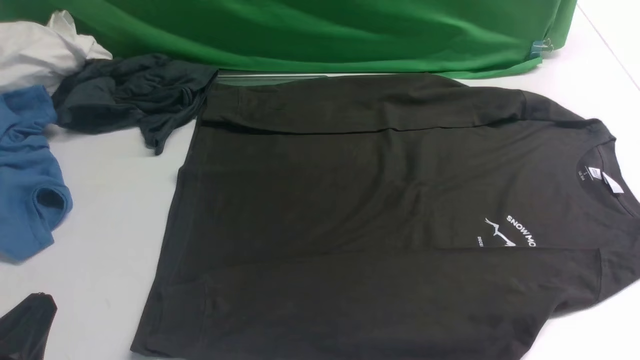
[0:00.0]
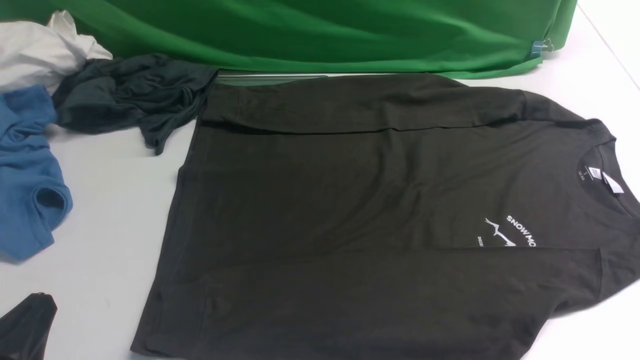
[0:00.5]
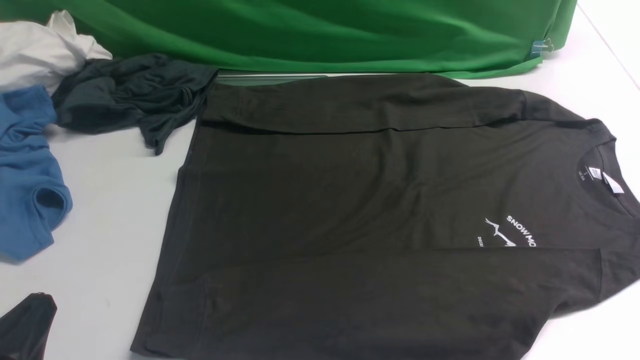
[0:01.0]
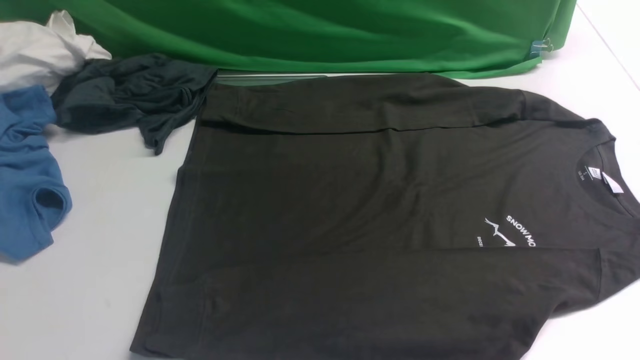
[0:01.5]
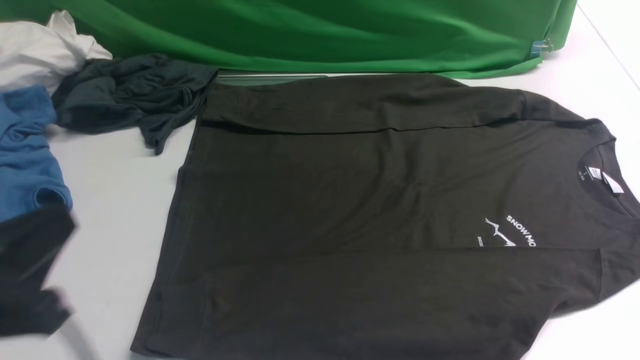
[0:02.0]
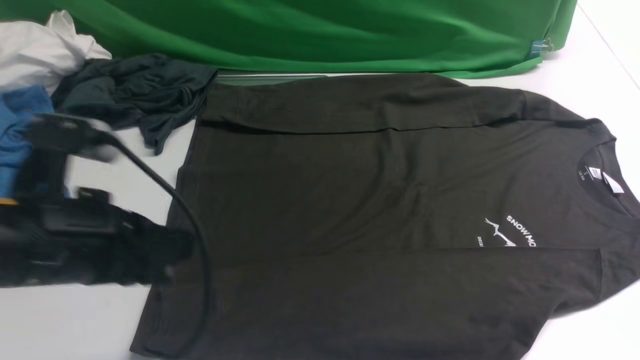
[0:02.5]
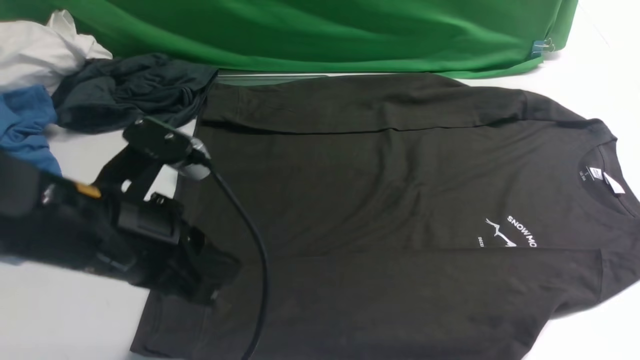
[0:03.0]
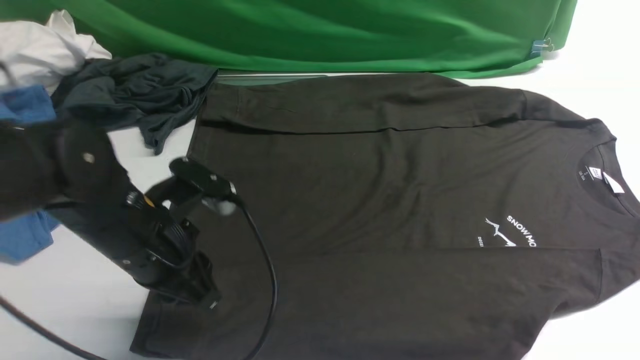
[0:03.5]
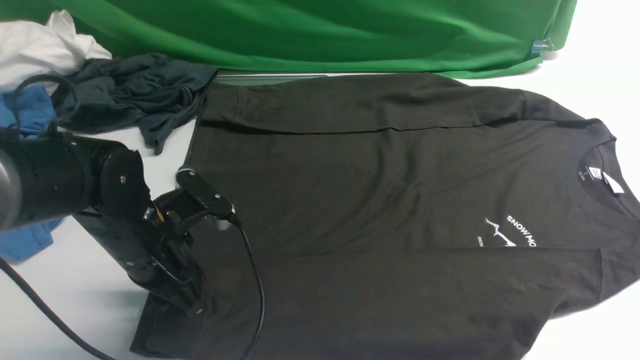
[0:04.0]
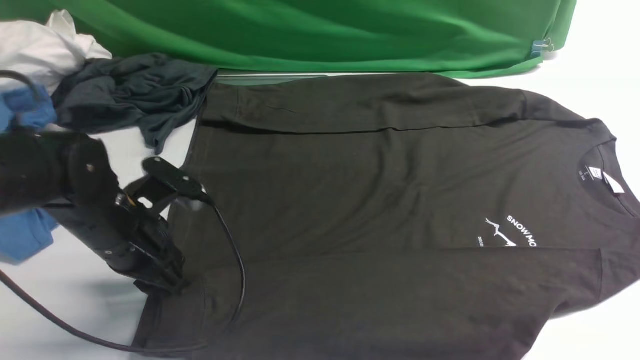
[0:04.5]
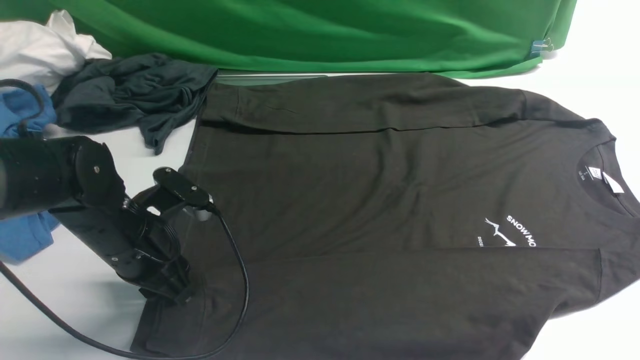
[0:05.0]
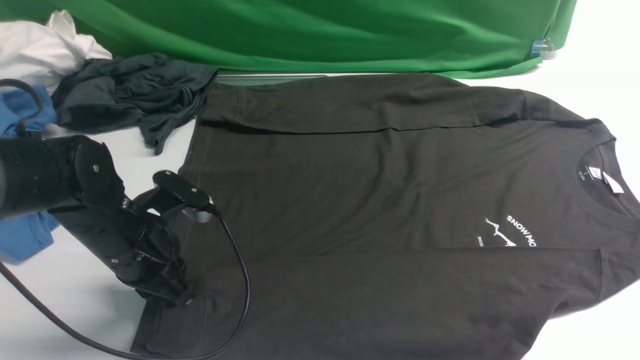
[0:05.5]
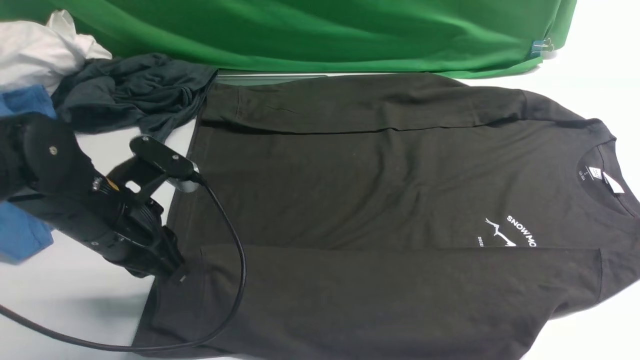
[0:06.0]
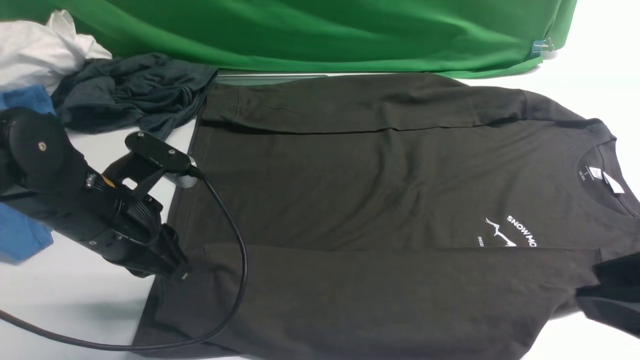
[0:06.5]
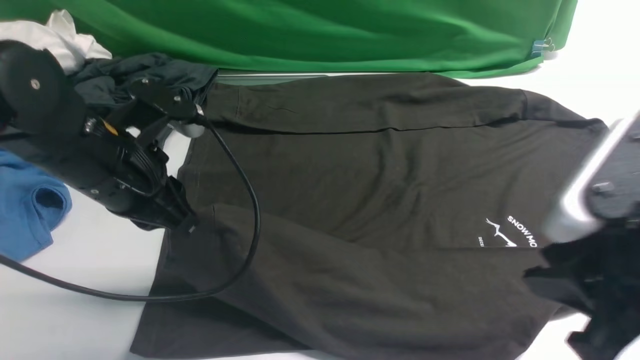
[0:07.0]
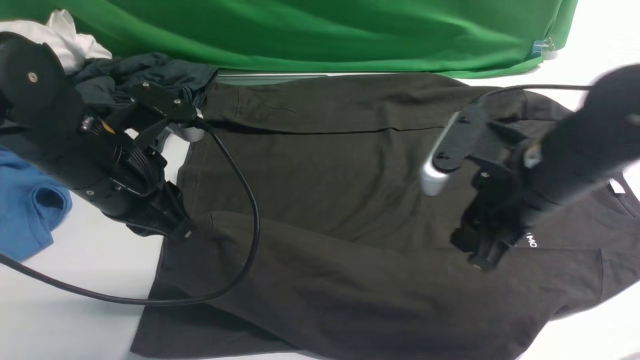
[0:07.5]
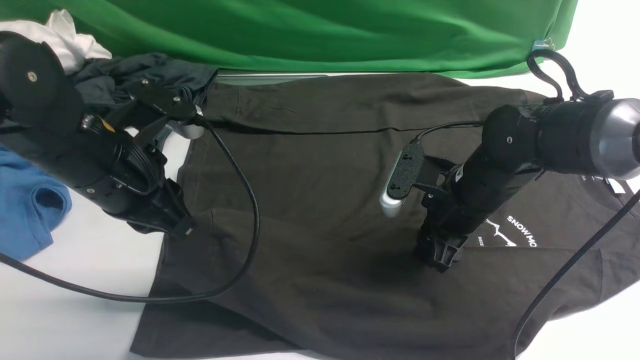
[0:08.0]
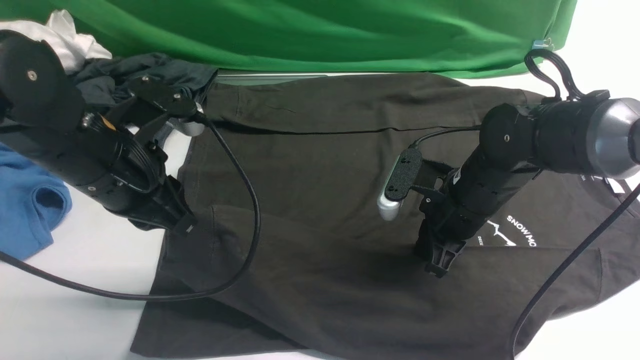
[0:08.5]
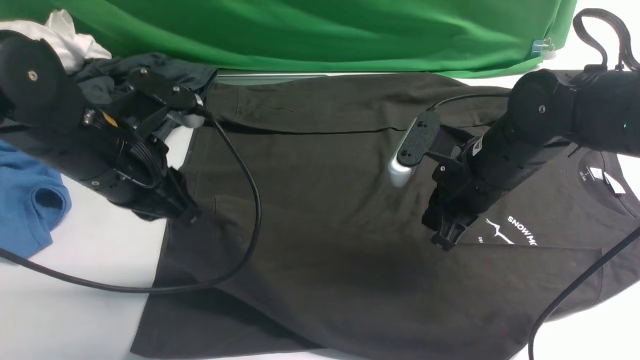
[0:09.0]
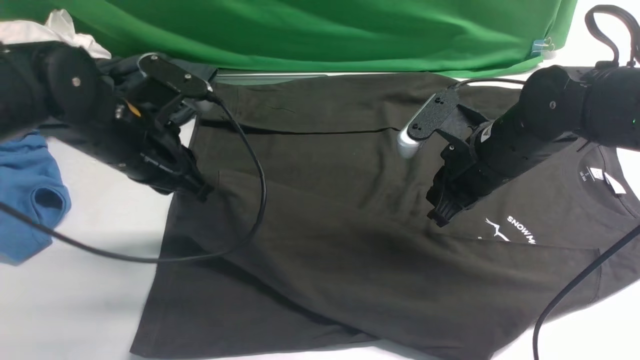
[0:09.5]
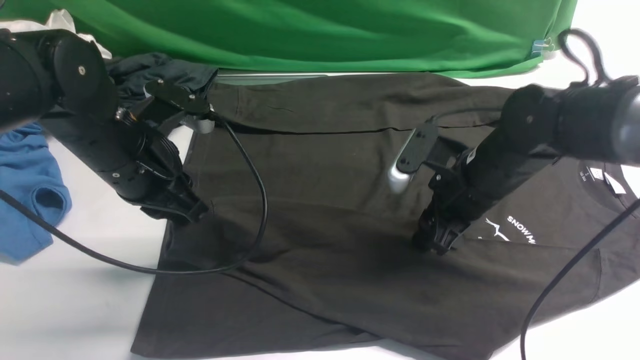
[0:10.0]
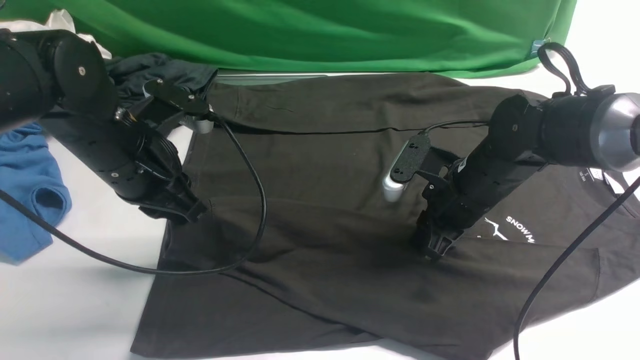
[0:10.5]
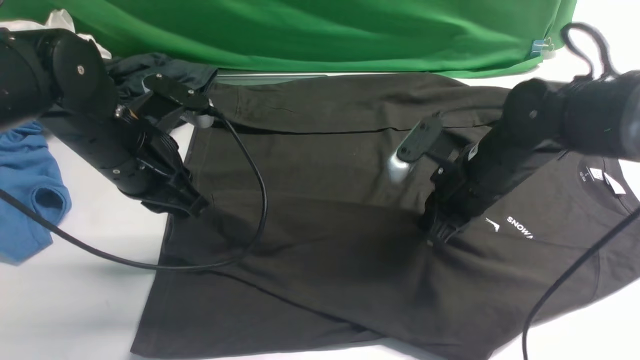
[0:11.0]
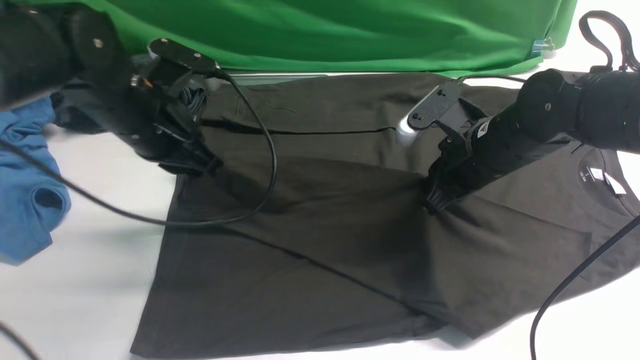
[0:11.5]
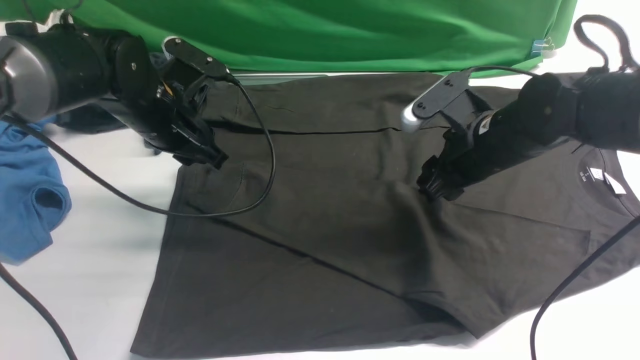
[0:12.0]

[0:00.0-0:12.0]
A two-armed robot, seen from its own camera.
Step, 0:00.0 to 0:06.5: use the left arm to clamp the cuff closest to it.
0:00.0 to 0:02.0: The left gripper travels upward by approximately 10 cm.
0:02.0 to 0:04.0: The left gripper heads forward and downward, covering roughly 20 cm, and opens up.
0:04.0 to 0:06.0: The left gripper closes up.
0:06.0 to 0:08.0: The right gripper moves forward, downward and to the left, roughly 35 cm; the left gripper moves upward, approximately 5 cm.
0:08.0 to 0:10.0: The right gripper closes, then reopens.
0:10.0 to 0:12.0: The right gripper closes and opens again. The left gripper goes some 10 cm forward, and opens its fingers.

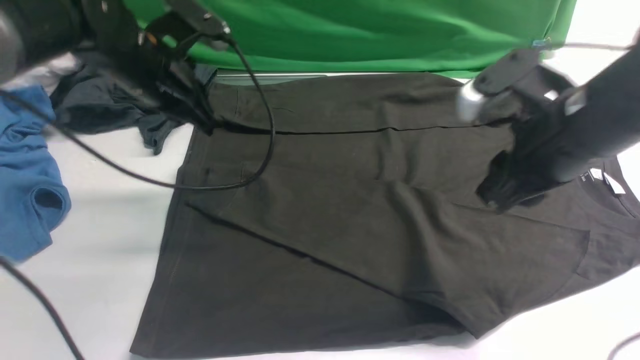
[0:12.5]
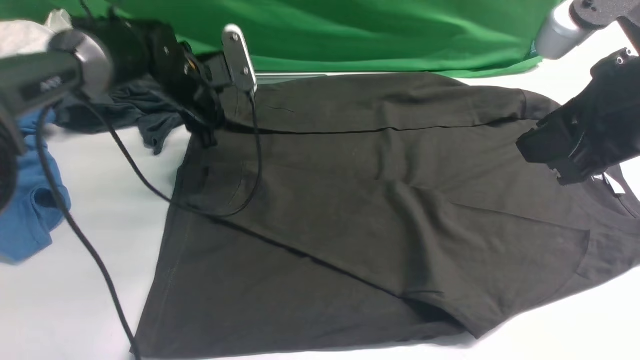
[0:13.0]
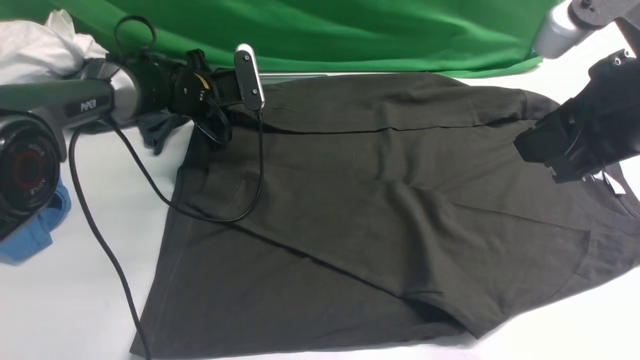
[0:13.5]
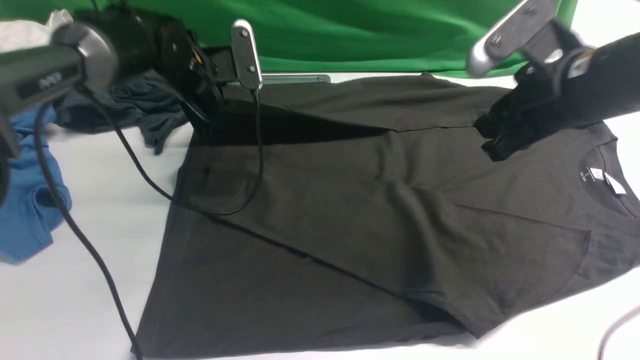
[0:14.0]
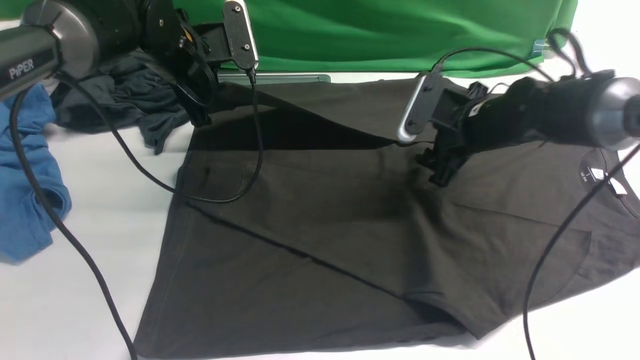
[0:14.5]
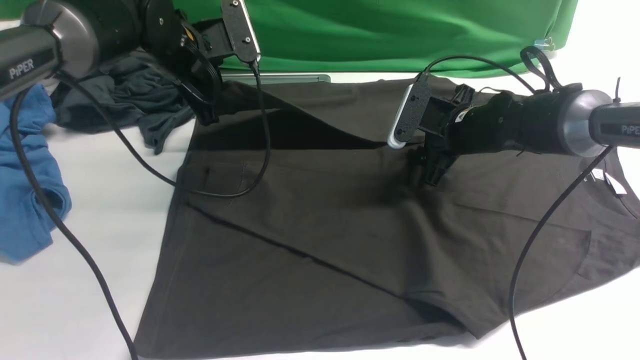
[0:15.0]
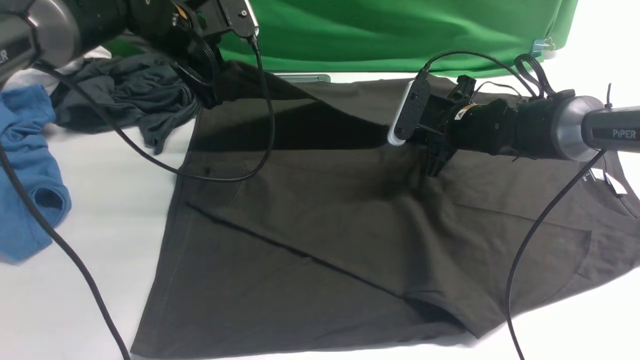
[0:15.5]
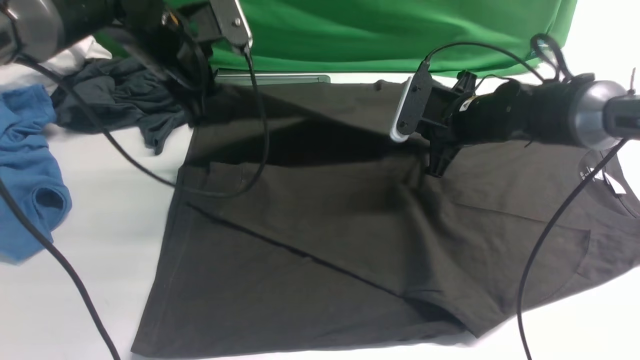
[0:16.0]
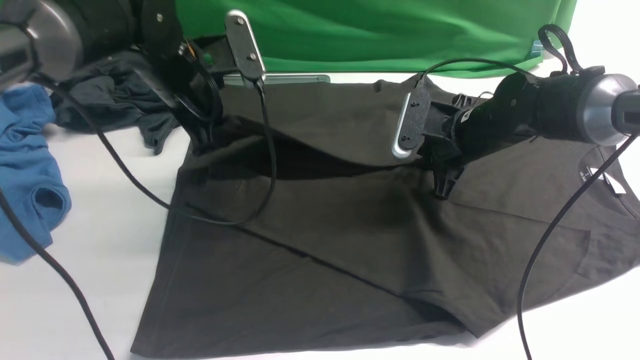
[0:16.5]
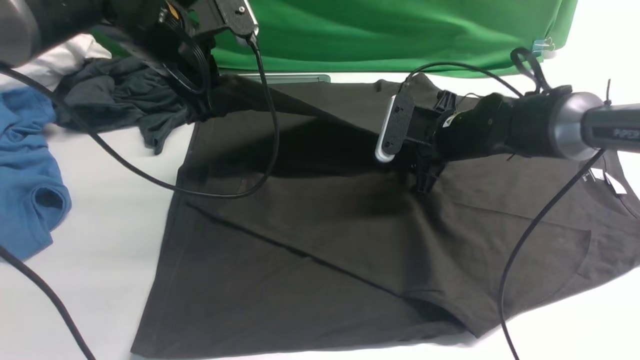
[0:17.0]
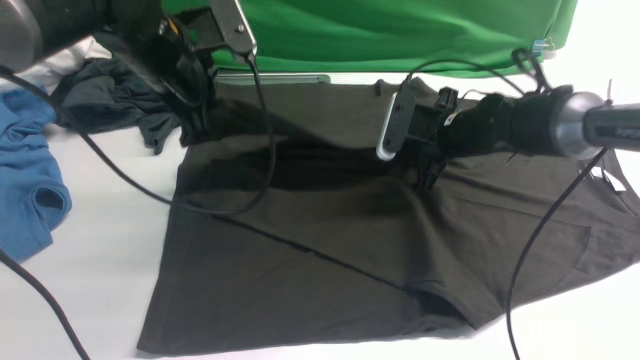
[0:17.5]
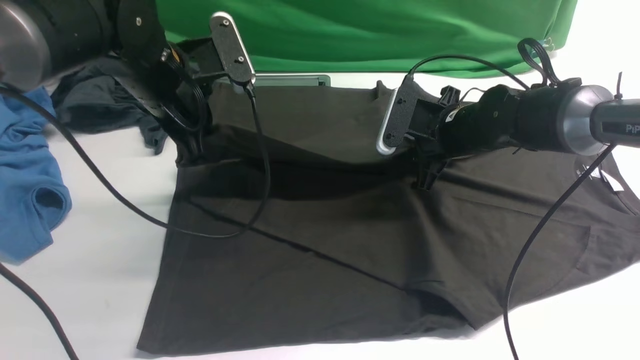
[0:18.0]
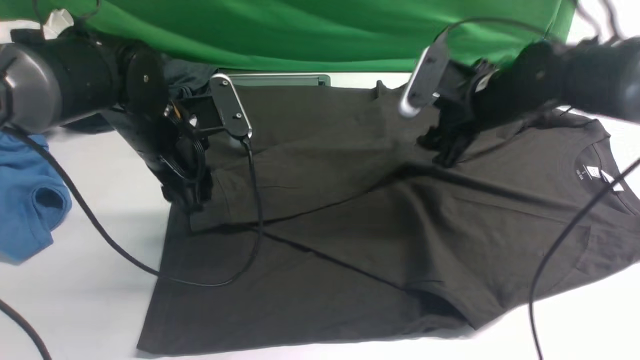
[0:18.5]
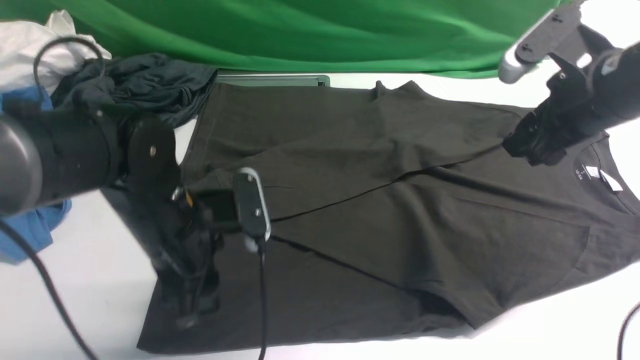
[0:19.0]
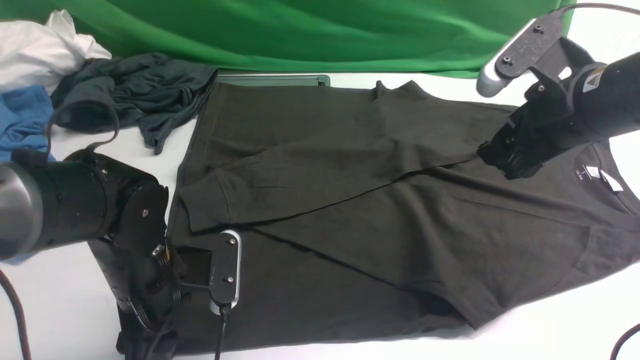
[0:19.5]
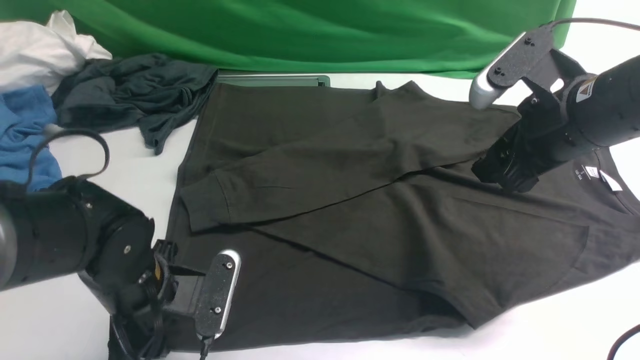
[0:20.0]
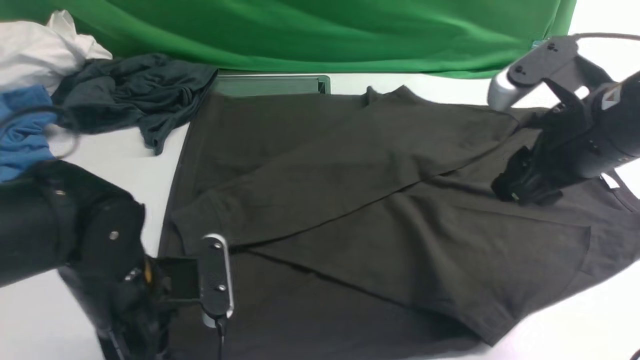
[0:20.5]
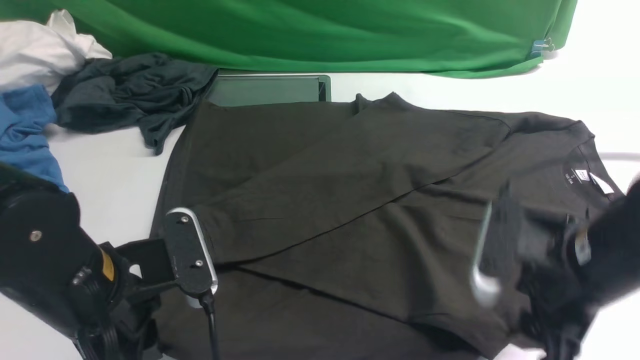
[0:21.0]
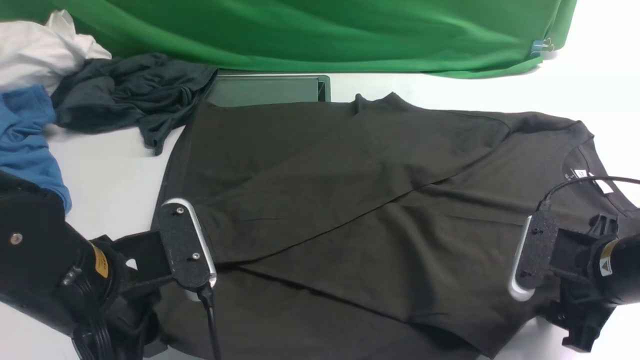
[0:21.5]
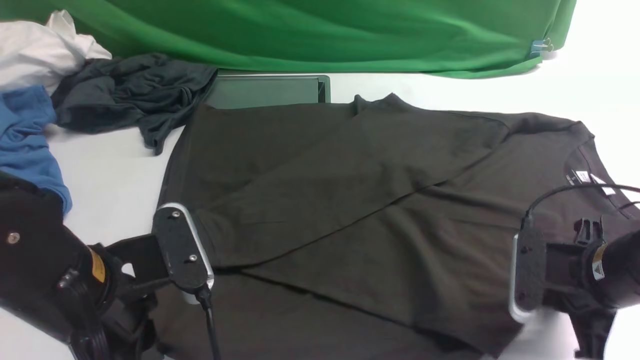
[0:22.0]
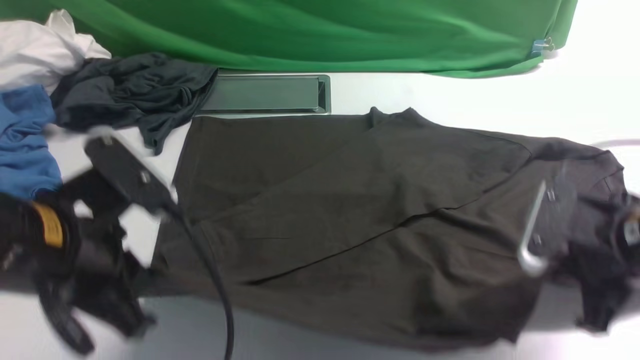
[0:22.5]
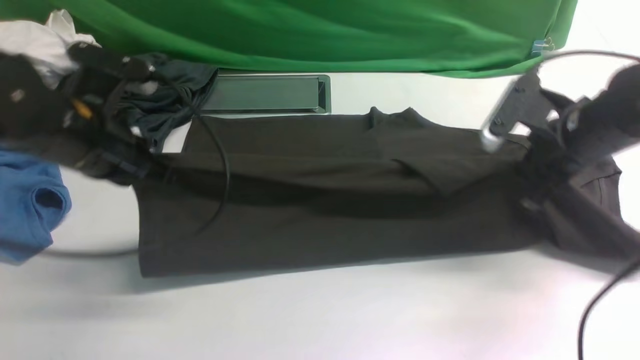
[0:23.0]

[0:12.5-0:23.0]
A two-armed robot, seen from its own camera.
Step, 0:12.5 to 0:13.5: use the left arm to clamp the cuff farthest from it.
Step, 0:14.0 to 0:18.5: use the left arm to drag and drop the cuff onto the cuff closest to the left arm.
Step, 0:19.0 to 0:22.0: use both arms simultaneously to clamp the lower edge of the clothing fabric.
0:12.5 to 0:14.5: The left gripper travels downward and back again, roughly 10 cm each way, and opens, then closes again; the right gripper shifts approximately 20 cm forward and downward, and opens.
0:14.5 to 0:16.5: The left gripper moves about 5 cm. Meanwhile the right gripper closes up.
0:16.5 to 0:19.0: The right gripper travels upward, backward and to the right by about 15 cm, and opens its fingers. The left gripper moves backward and downward, roughly 15 cm, and opens up.
0:19.0 to 0:21.0: The left gripper travels backward by some 10 cm, and closes its fingers, while the right gripper shifts roughly 15 cm backward and downward.
0:21.0 to 0:23.0: Both grippers travel together forward, approximately 15 cm. The right gripper closes up.
